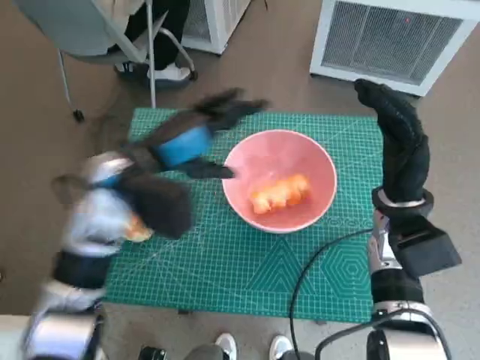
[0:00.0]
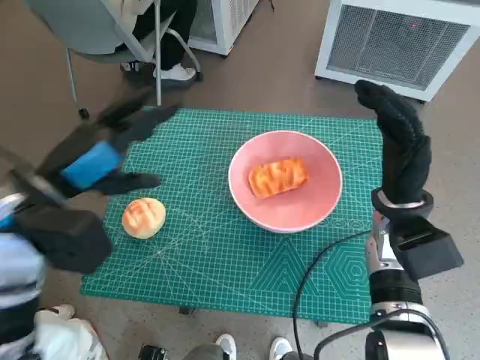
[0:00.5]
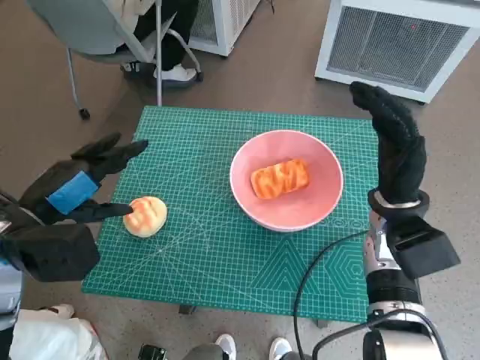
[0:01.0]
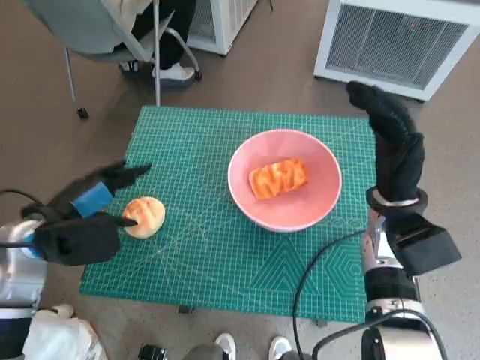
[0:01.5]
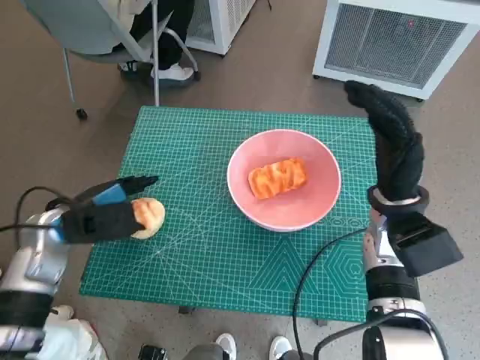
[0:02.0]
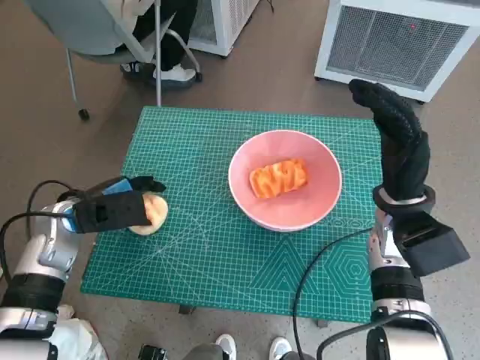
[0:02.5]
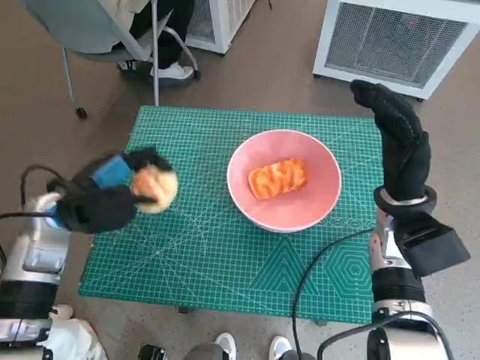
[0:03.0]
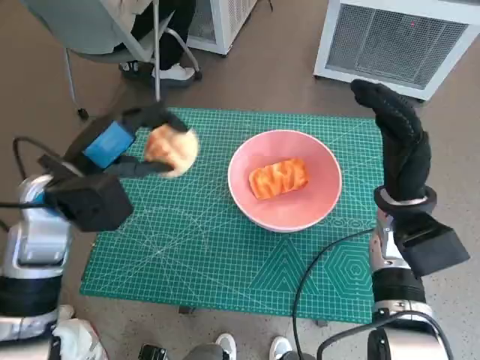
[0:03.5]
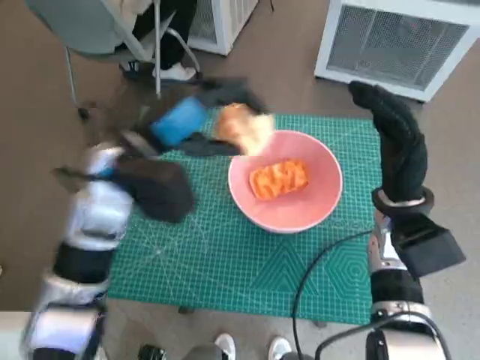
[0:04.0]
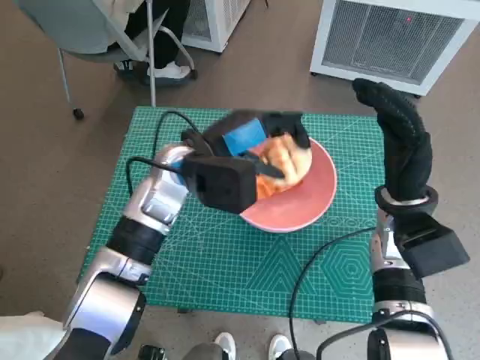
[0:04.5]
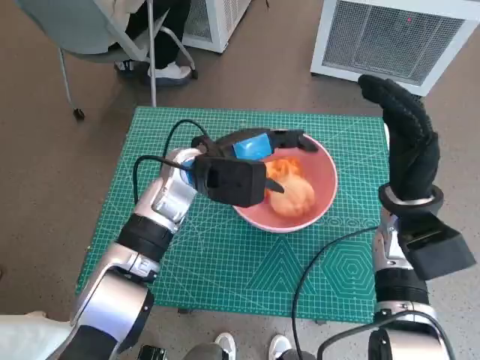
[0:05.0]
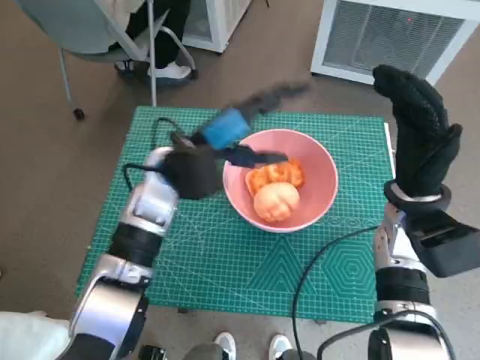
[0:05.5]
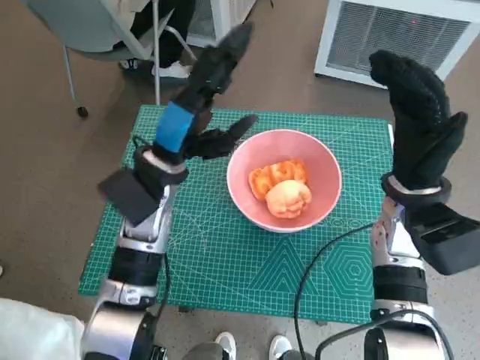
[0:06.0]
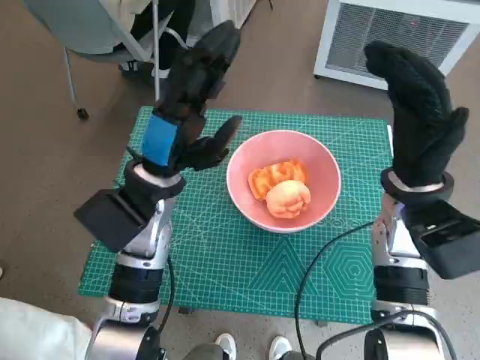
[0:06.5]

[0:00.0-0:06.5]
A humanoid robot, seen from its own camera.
Task of the whole recording: Push the bowl to the center of the table and put the bread into the bowl.
Step, 0:00.5 to 0:02.5: Grasp the round bread with left hand.
Step, 0:03.0 to 0:05.5: Place the round bread in pink bowl with left hand.
0:00.0 to 0:02.0: The left hand heads to the left and downward, covering approximately 15 cm.
0:02.0 to 0:04.5: The left hand shifts roughly 20 cm to the right.
0:04.5 to 0:06.5: The left hand moves some 5 cm.

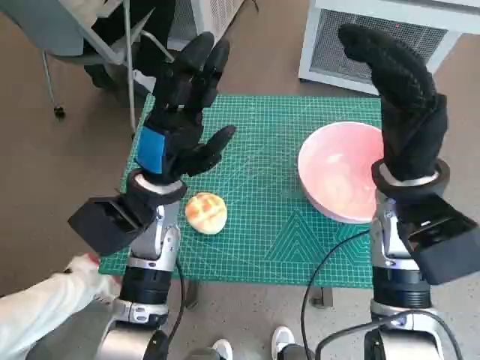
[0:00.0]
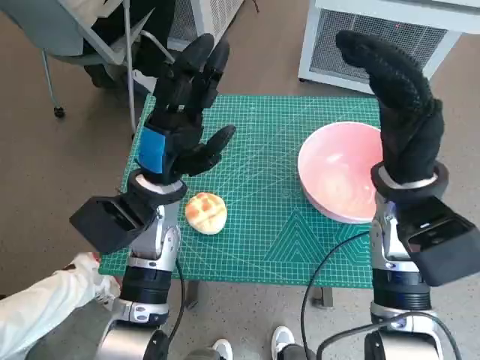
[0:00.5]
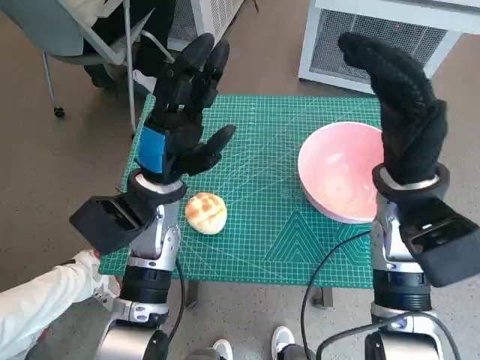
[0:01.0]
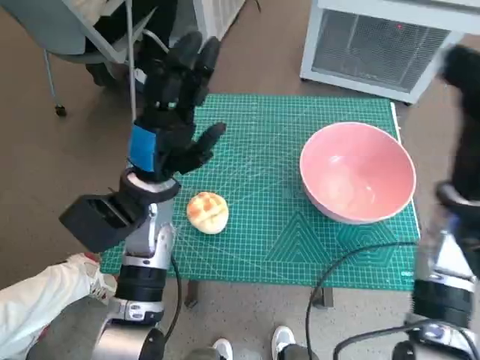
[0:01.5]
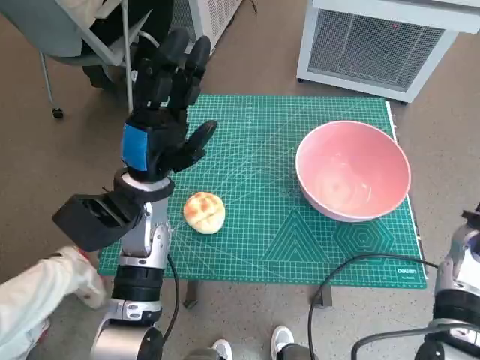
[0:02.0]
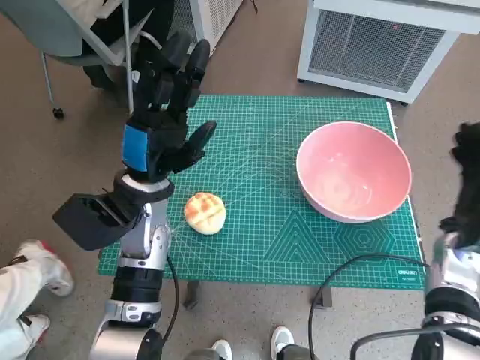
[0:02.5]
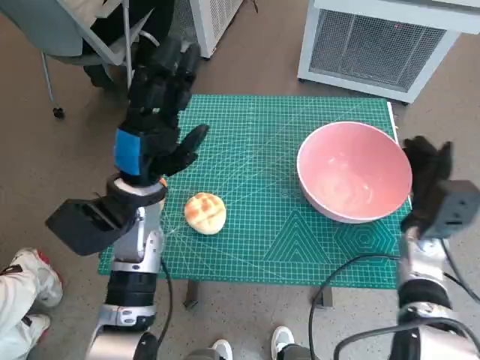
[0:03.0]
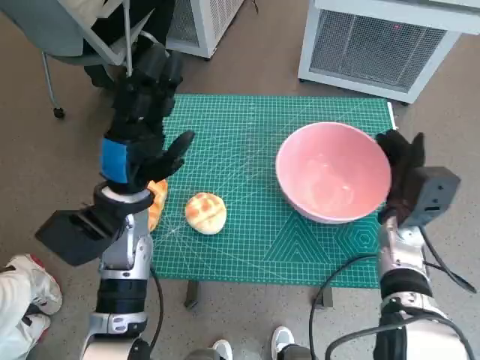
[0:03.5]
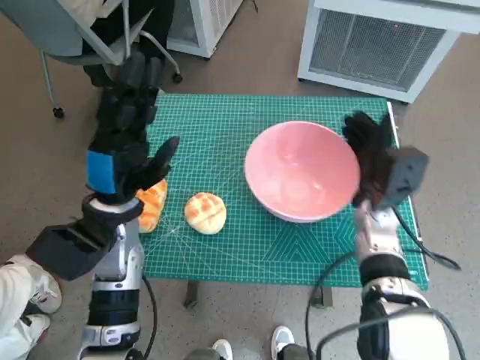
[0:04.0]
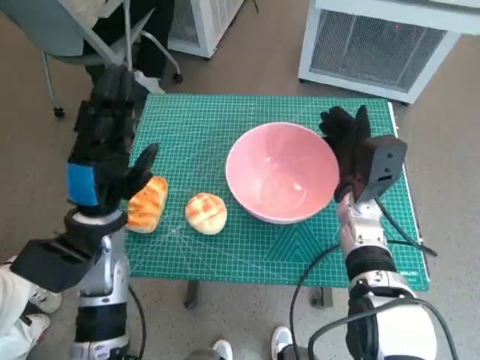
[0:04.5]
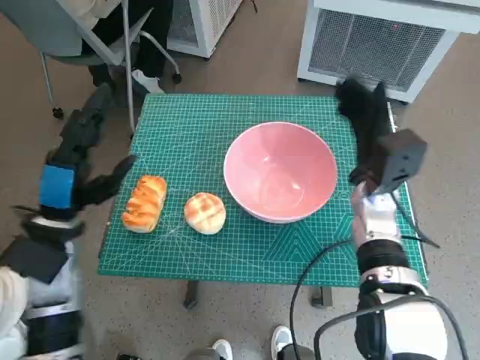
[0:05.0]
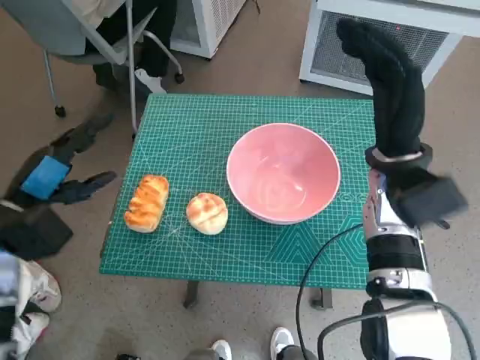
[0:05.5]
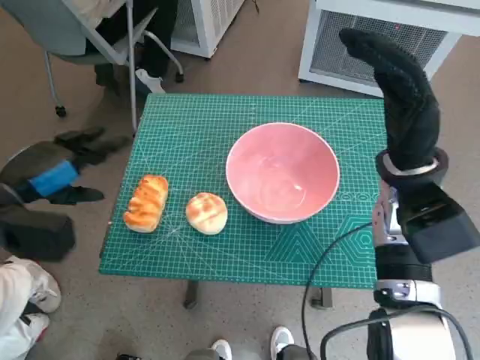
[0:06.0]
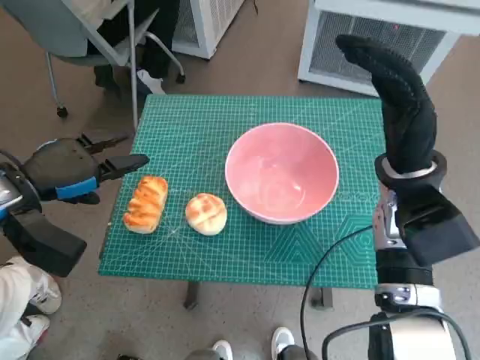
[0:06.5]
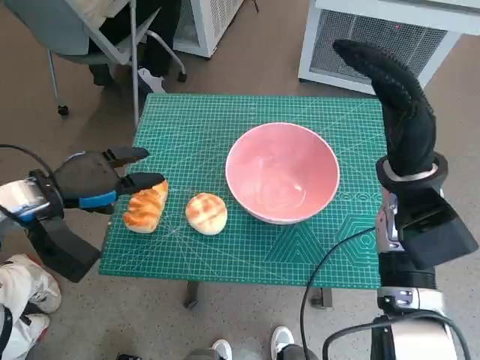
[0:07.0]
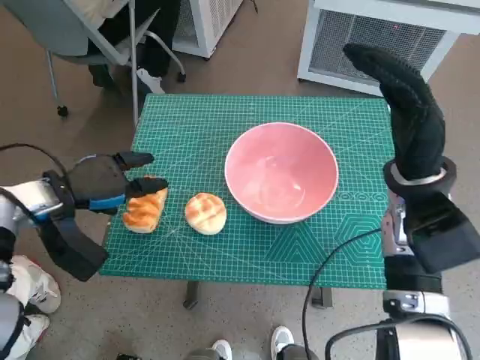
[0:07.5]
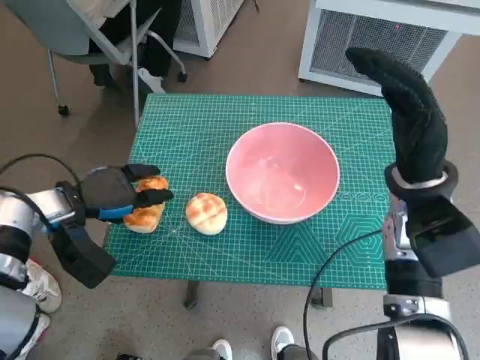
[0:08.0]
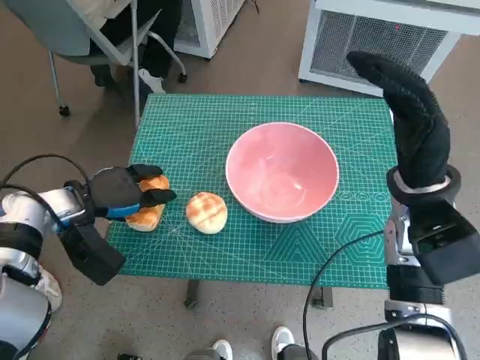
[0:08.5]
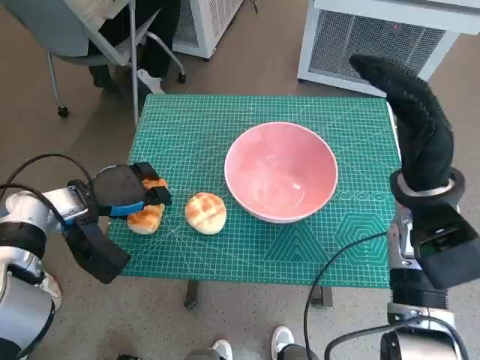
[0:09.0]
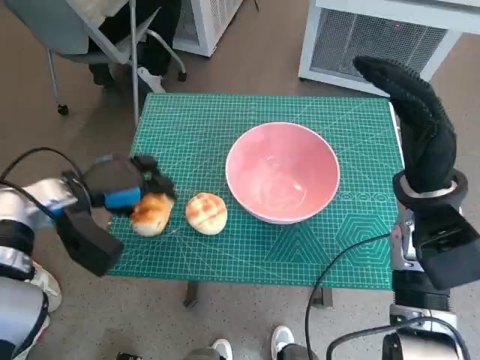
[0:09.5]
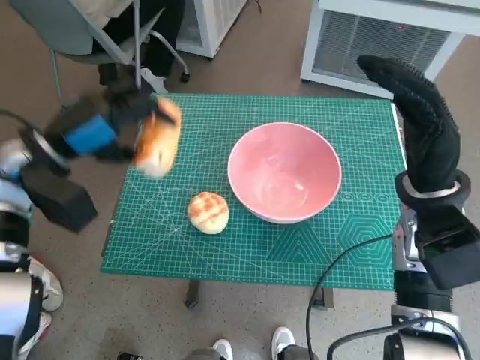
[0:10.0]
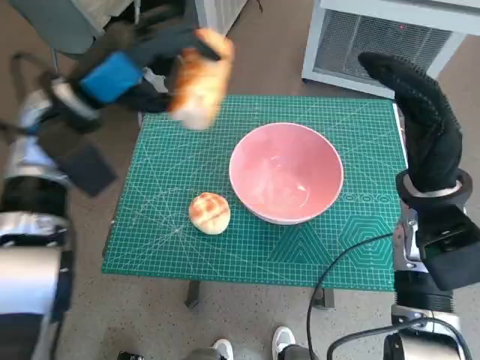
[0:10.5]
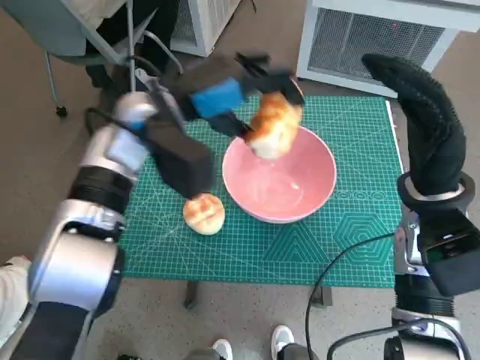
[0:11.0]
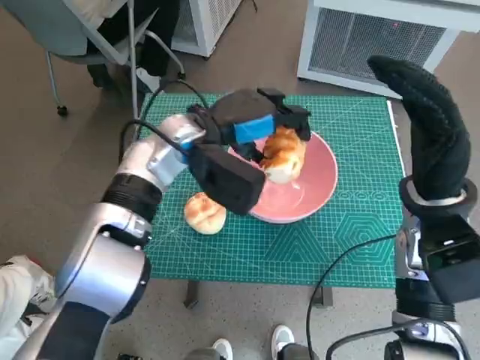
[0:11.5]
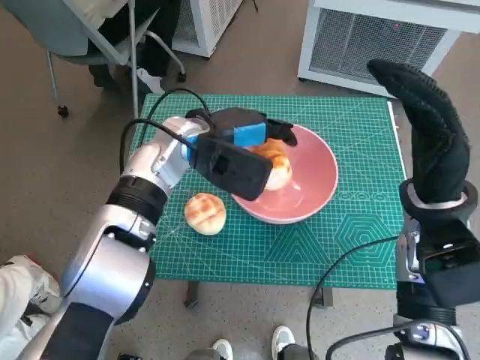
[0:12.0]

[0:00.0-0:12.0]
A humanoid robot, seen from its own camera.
Task of the whole recording: Push the bowl to the center of the table and put the bread into the bowl.
Step, 0:00.0 to 0:04.5: Move the pink bowl to the center of table with right hand.
Step, 0:05.0 to 0:09.0: Grasp the long bread with left hand.
0:02.0 to 0:04.0: The right hand heads to the left and forward, covering approximately 10 cm.
0:04.0 to 0:06.0: The left hand travels to the left by about 15 cm. Meanwhile the right hand is displaced upward by some 10 cm.
0:06.0 to 0:08.0: The left hand goes some 5 cm downward.
0:08.0 to 0:10.0: The left hand travels upward by roughly 10 cm.
0:10.0 to 0:12.0: The left hand shifts about 20 cm to the right.

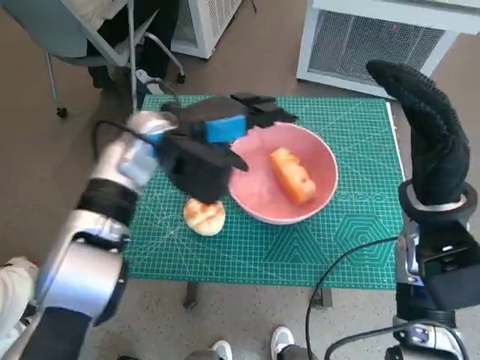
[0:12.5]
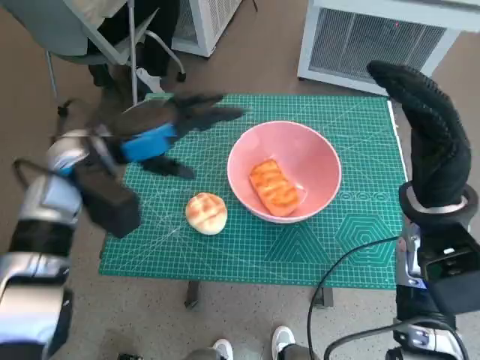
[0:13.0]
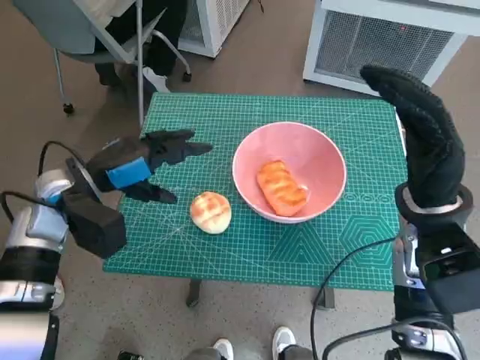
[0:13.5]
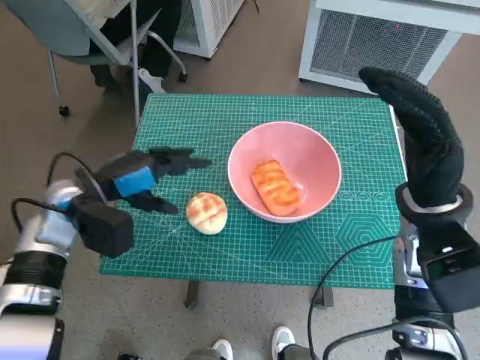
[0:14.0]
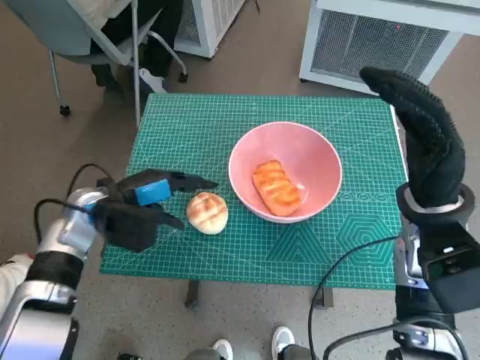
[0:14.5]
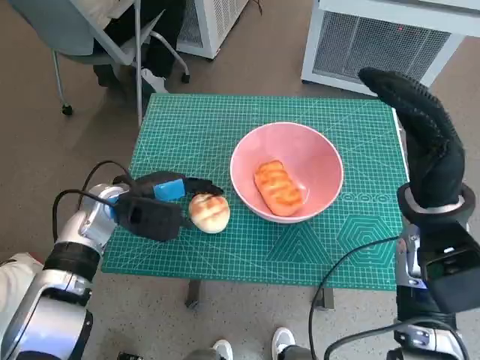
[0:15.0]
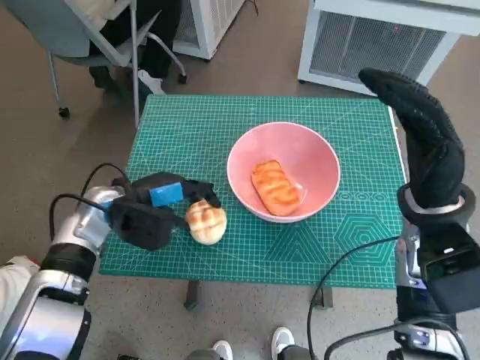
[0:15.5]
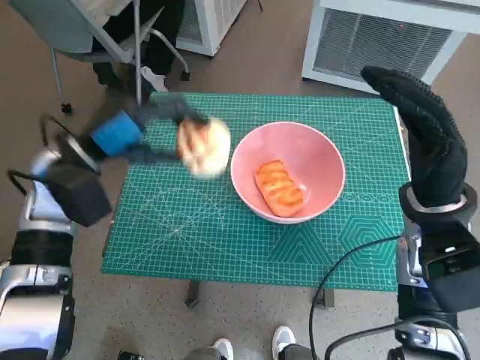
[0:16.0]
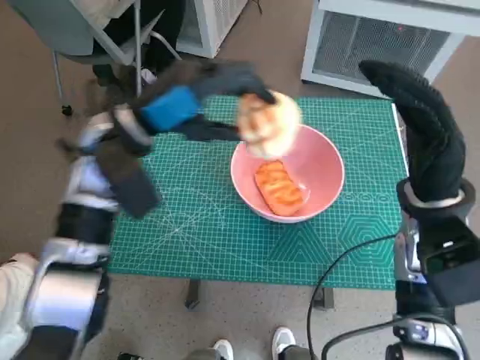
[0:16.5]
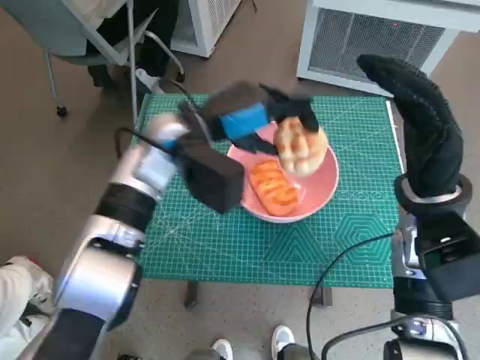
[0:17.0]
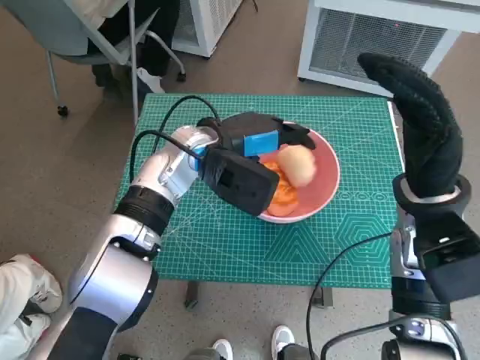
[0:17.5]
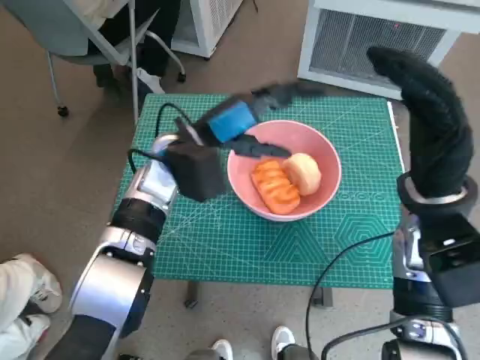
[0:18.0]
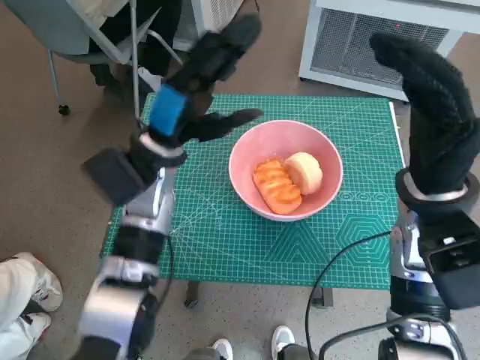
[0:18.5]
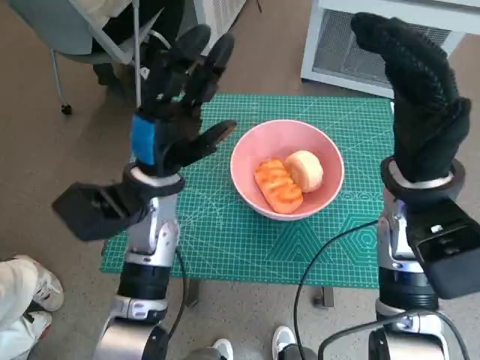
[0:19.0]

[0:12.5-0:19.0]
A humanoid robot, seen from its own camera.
Task of the whole recording: Push the bowl to the center of the table and put the bread into the bowl.
Step, 0:12.5 to 0:15.0: Grasp the round bread with left hand.
Step, 0:15.5 to 0:17.5: Place the round bread in pink bowl with left hand.
0:12.5 to 0:14.5: The left hand is displaced to the left, downward and backward by some 15 cm.
0:14.5 to 0:17.0: The left hand is displaced to the right and upward by some 15 cm.
0:17.0 to 0:19.0: The left hand heads downward, covering approximately 5 cm.
